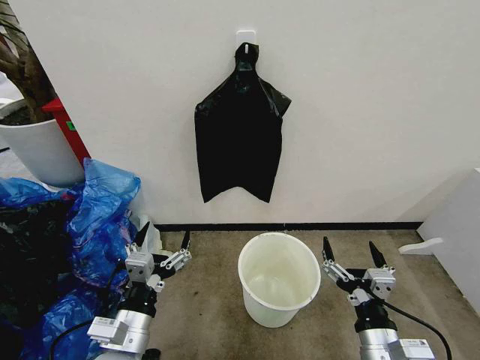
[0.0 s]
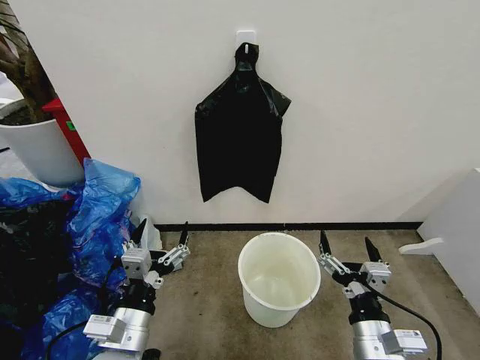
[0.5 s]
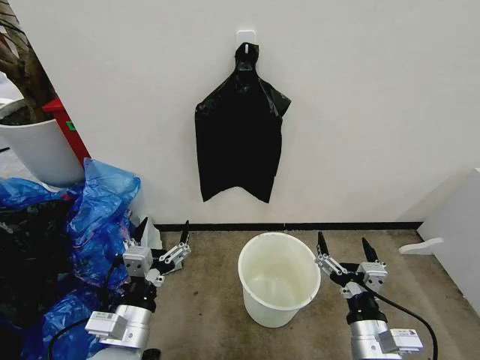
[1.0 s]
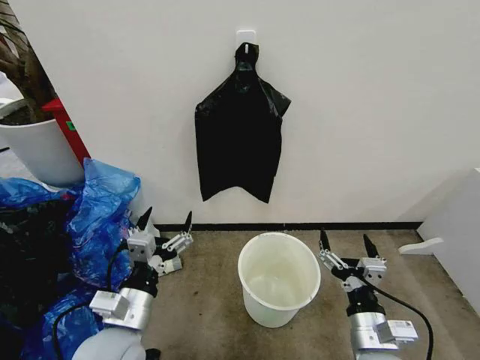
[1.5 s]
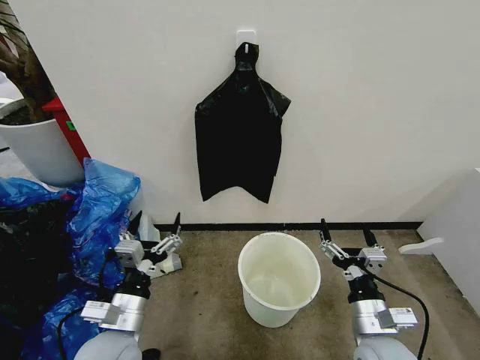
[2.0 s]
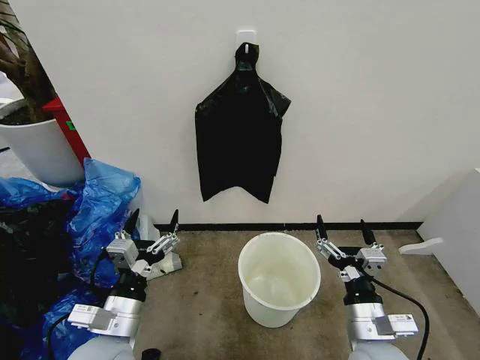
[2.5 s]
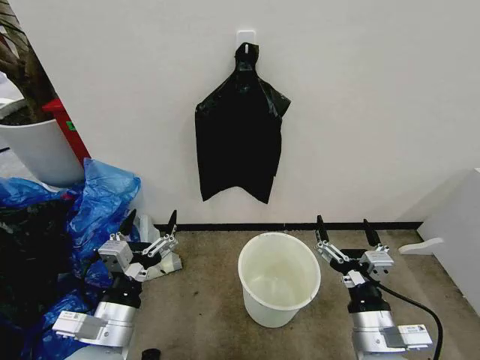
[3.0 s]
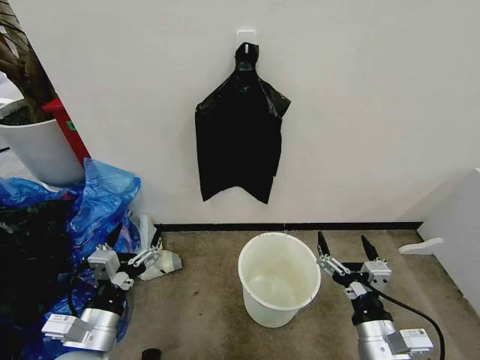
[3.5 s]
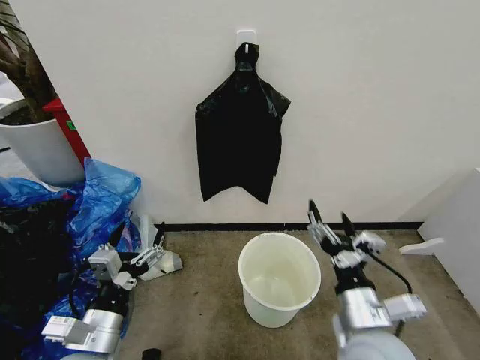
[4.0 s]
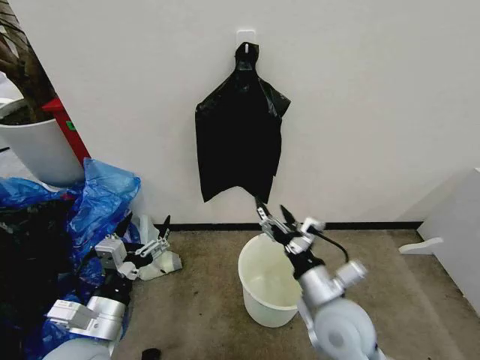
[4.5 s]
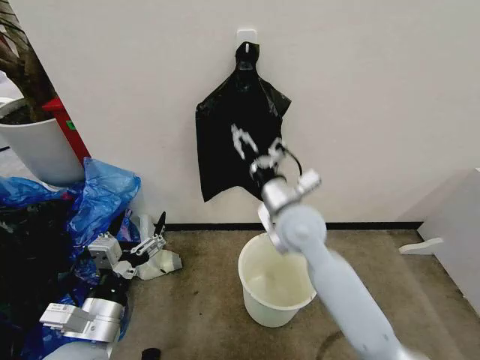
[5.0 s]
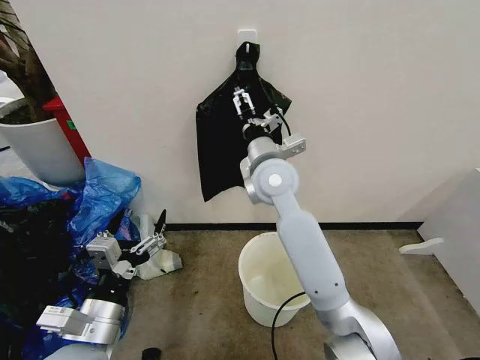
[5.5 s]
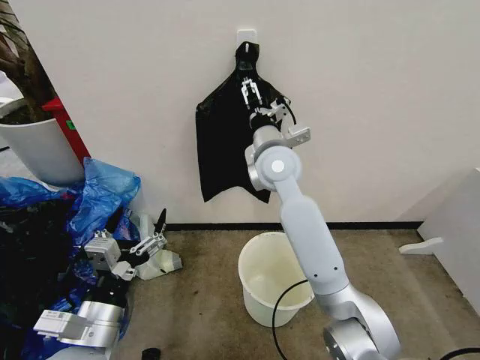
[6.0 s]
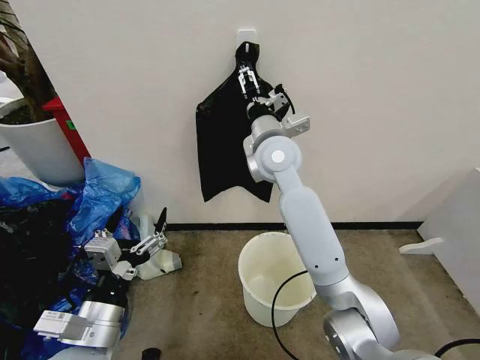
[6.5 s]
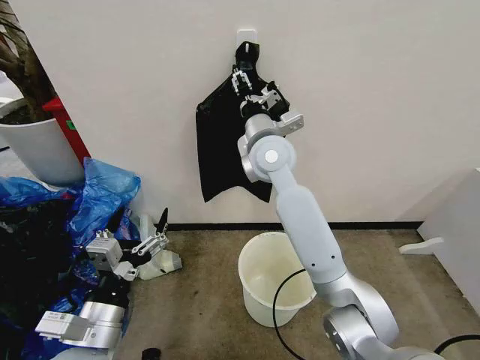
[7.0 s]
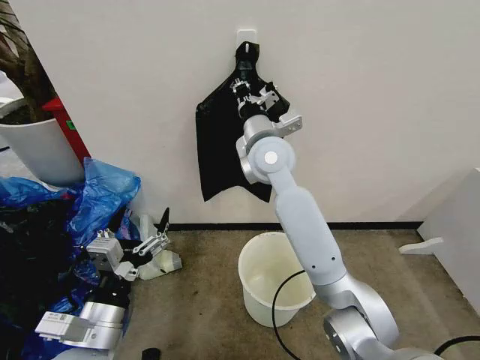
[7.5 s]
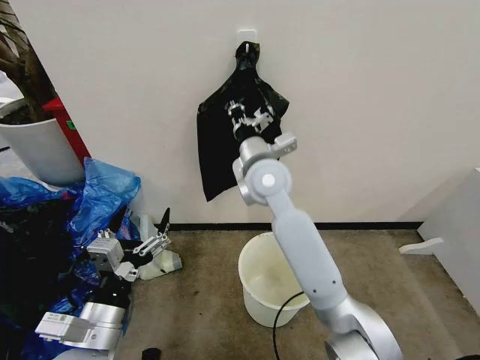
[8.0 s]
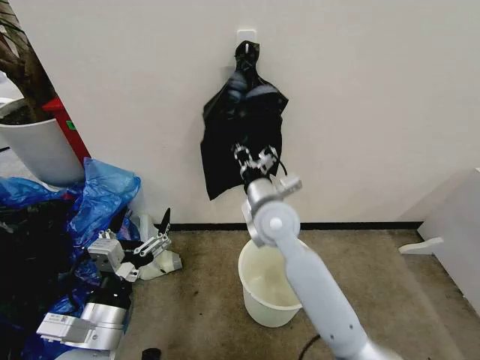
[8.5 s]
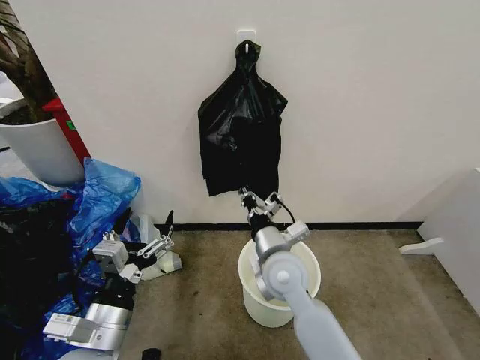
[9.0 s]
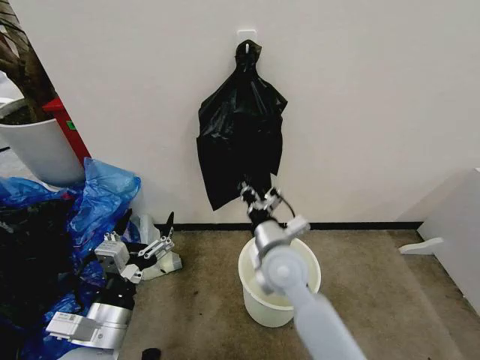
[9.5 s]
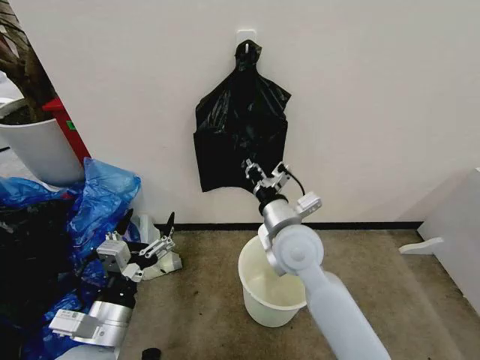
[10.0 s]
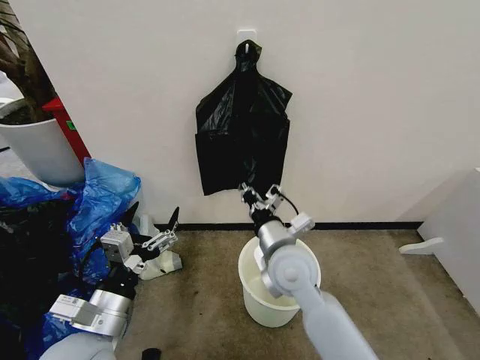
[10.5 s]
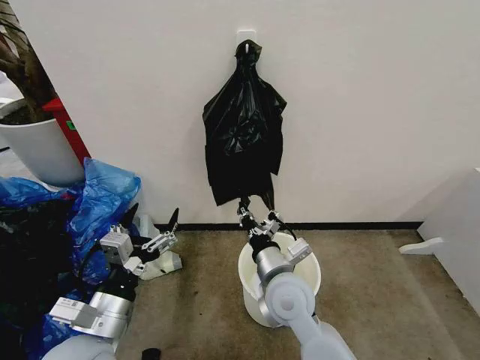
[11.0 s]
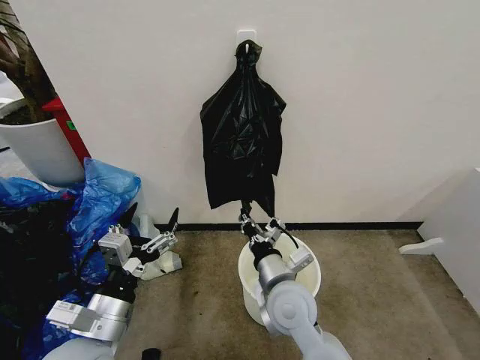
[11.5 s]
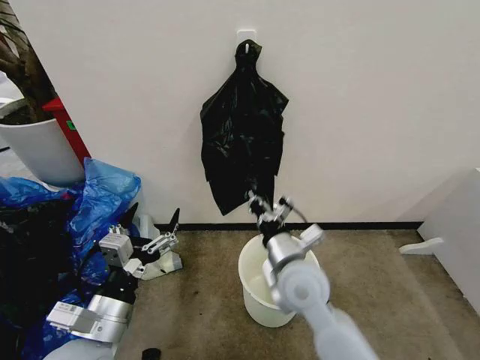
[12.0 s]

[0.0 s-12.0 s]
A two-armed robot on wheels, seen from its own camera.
Task of the whole recording: Place the garbage bag over the trash bin.
2.0 to 4.0 s: The left gripper shifts by approximately 5 cm, while the right gripper travels upward by roughly 5 cm.
4.0 to 6.0 s: The right gripper heads forward, upward and to the left, covering about 40 cm.
6.0 to 8.0 s: The right gripper closes.
8.0 to 10.0 s: The right gripper moves backward, downward and to the right, roughly 15 cm.

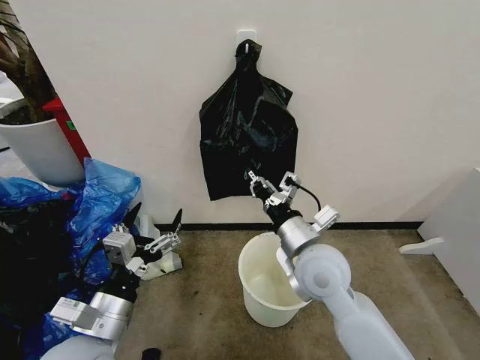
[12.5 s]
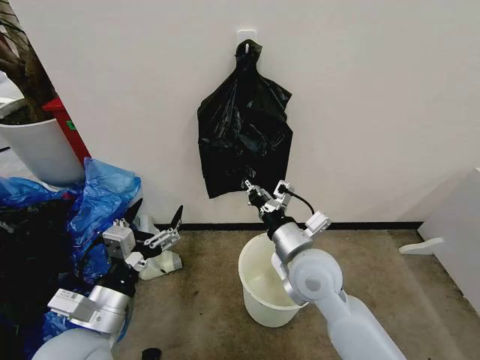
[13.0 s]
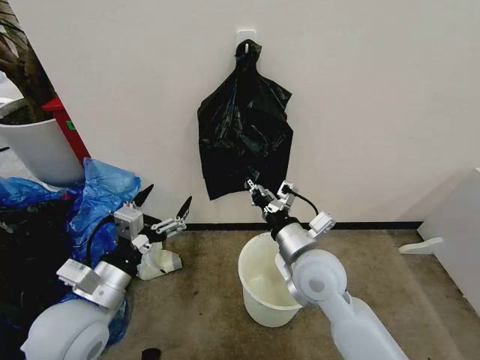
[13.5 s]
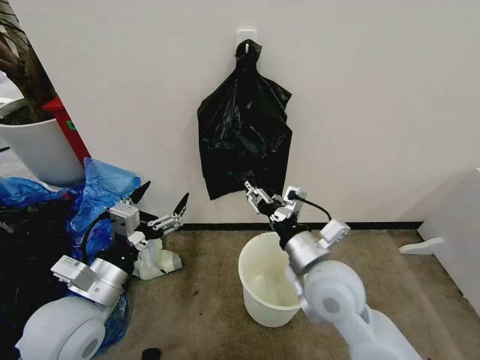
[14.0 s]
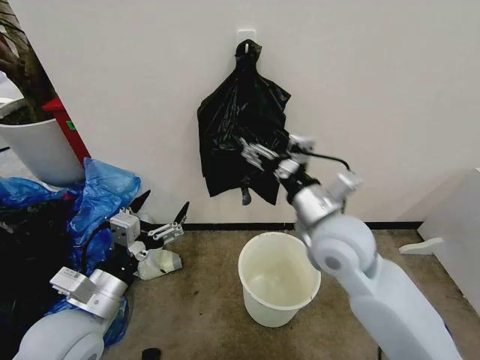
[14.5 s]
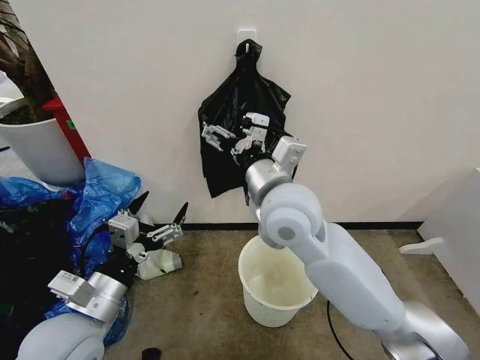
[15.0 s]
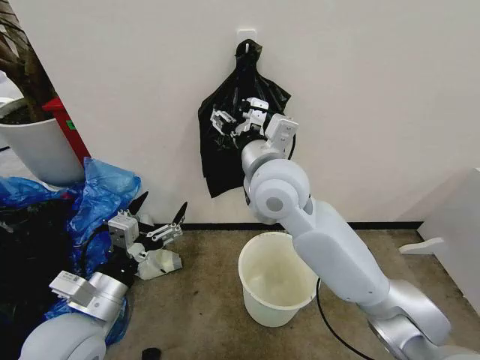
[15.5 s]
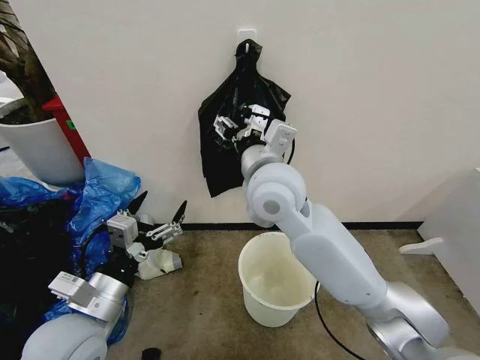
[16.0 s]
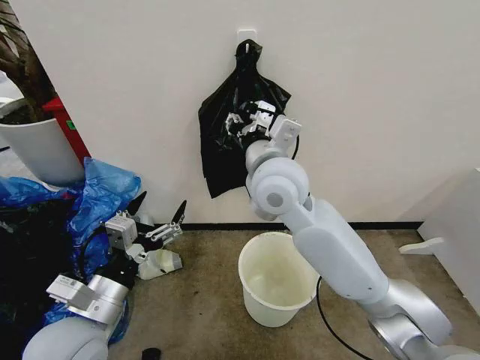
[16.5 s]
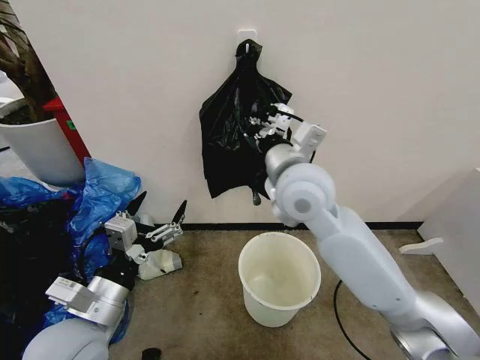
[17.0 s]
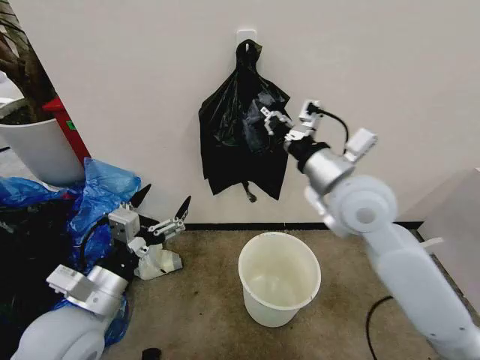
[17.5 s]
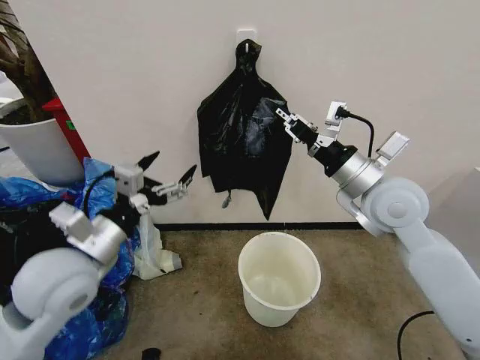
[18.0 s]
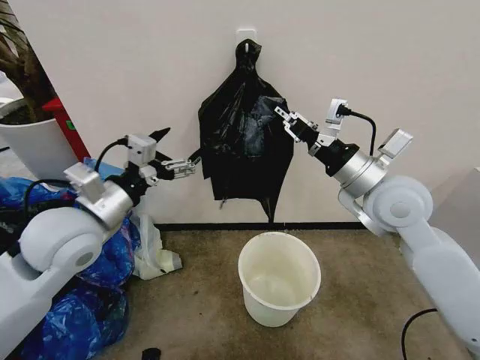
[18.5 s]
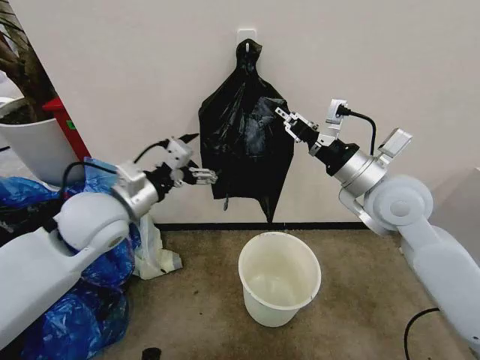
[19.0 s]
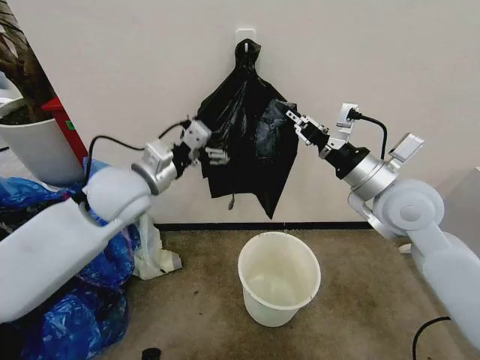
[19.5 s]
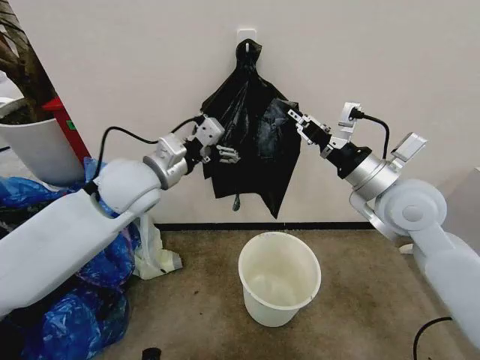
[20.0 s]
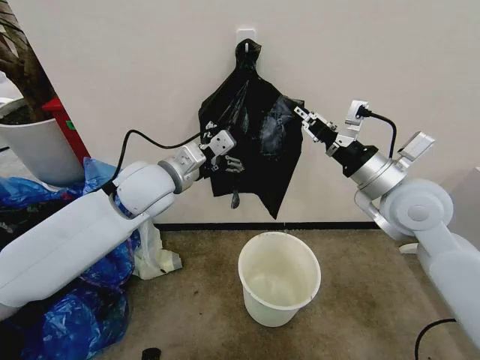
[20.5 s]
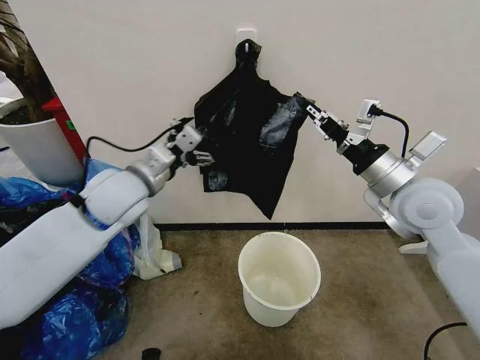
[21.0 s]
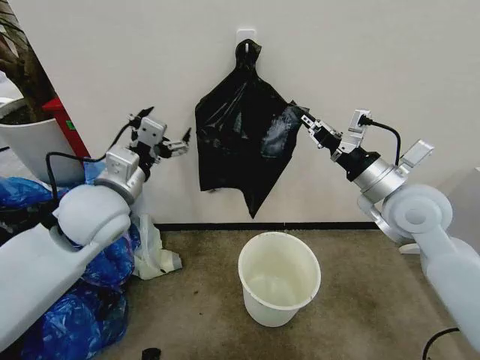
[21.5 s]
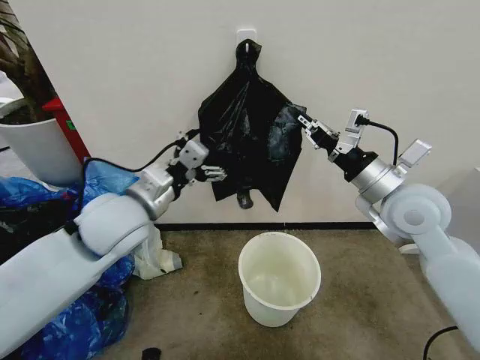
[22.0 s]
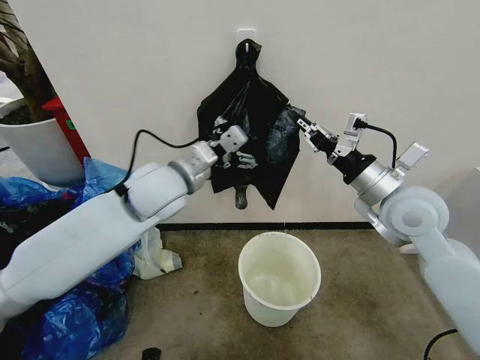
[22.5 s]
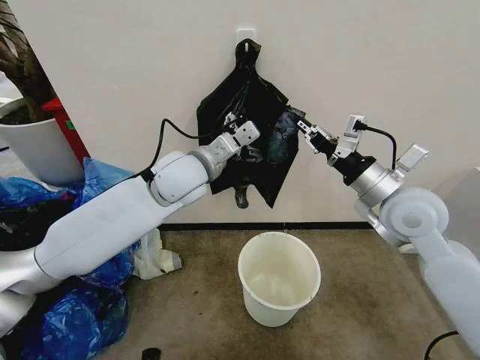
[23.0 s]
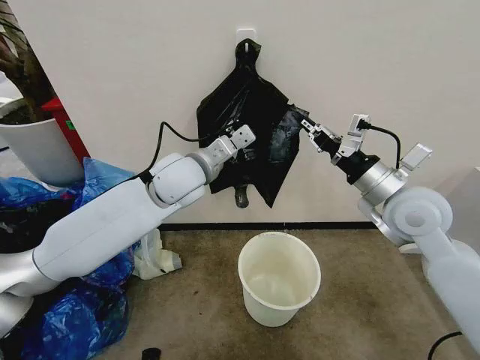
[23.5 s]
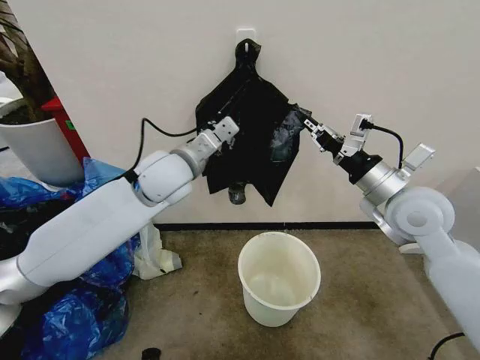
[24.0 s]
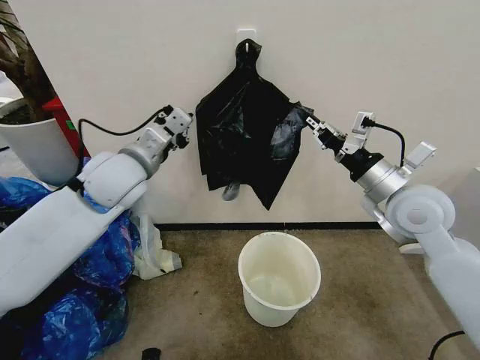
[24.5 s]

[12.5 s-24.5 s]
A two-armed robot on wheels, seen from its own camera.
Task of the whole recording: Place the garbage bag over the trash bin.
12.5 to 14.5 s: The right gripper travels upward by about 5 cm, and opens its fingers.
14.5 to 16.5 s: The right gripper goes some 15 cm to the left, forward and upward, and closes up.
16.5 to 18.5 s: The left gripper moves forward and upward, roughly 15 cm. Meanwhile the right gripper is displaced to the right by approximately 20 cm, and closes up.
18.5 to 20.5 s: The left gripper shifts approximately 15 cm forward and to the right.
20.5 to 22.5 s: The left gripper moves about 5 cm to the left and comes back.
22.5 to 24.5 s: The left gripper moves to the left, roughly 5 cm, and closes.

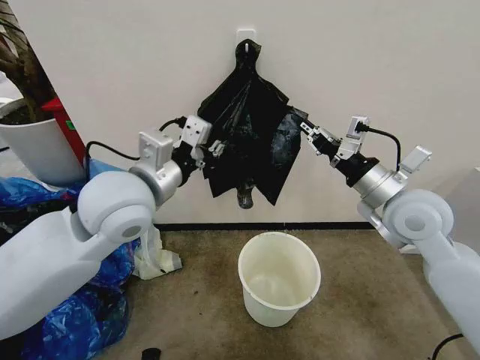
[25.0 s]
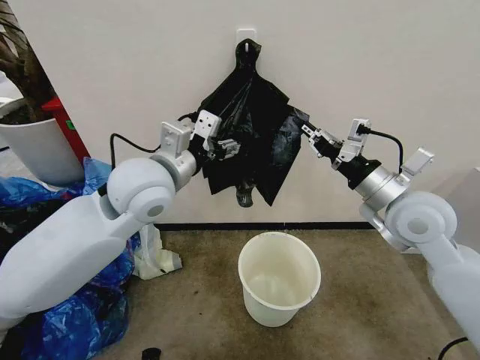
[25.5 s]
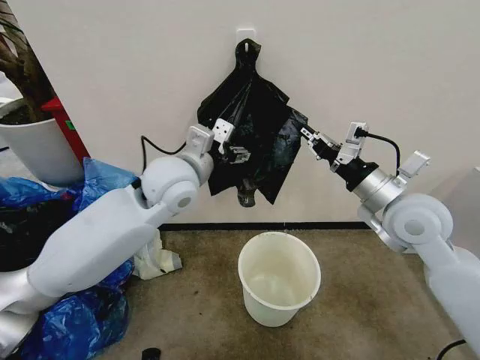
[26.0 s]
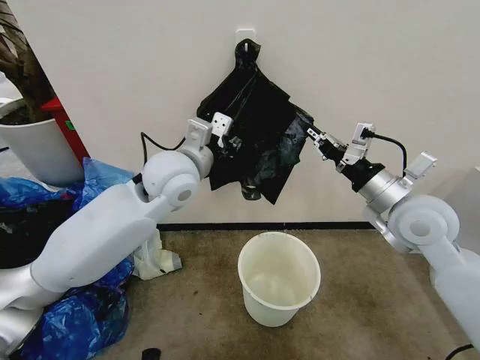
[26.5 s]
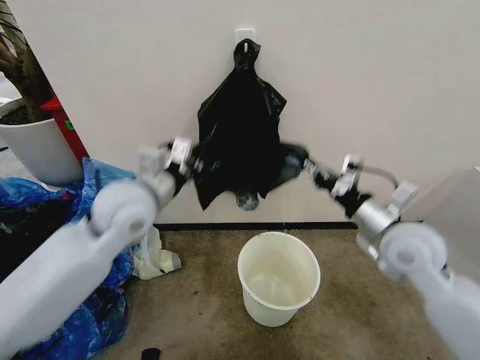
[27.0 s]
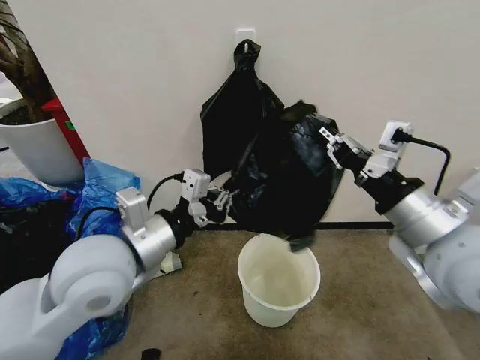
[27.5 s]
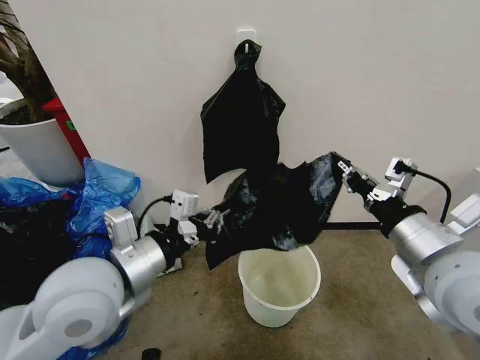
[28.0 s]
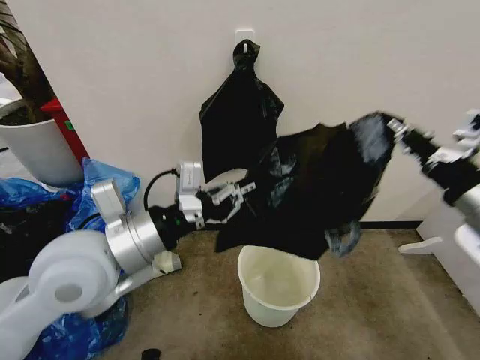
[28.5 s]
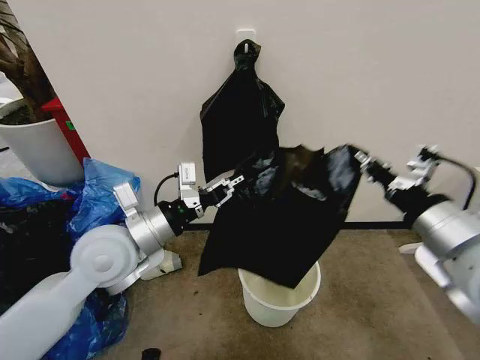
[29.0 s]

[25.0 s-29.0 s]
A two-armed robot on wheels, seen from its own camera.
Task of the whole recording: Place the garbage bag over the trash bin.
25.0 to 27.0 s: The left gripper opens, then closes once more, while the right gripper travels downward by approximately 5 cm.
27.0 to 29.0 s: The left gripper heads backward, covering about 5 cm, while the right gripper moves backward and upward, roughly 15 cm.
